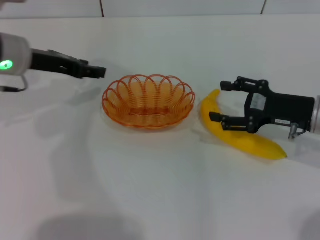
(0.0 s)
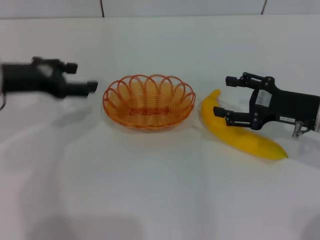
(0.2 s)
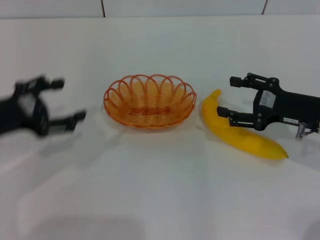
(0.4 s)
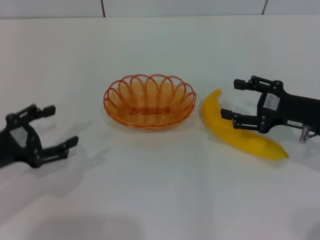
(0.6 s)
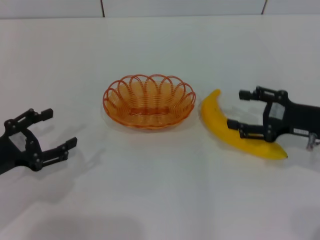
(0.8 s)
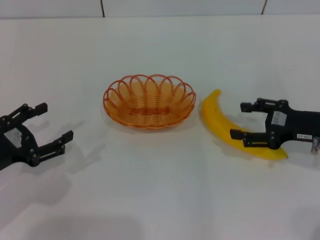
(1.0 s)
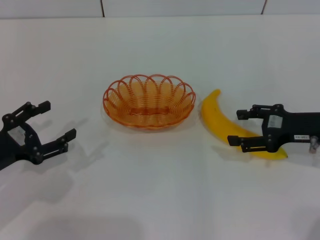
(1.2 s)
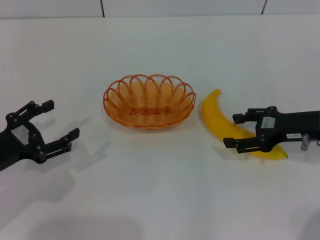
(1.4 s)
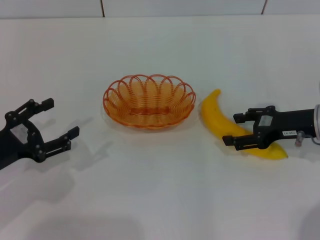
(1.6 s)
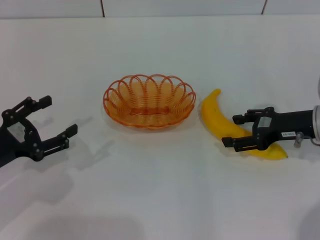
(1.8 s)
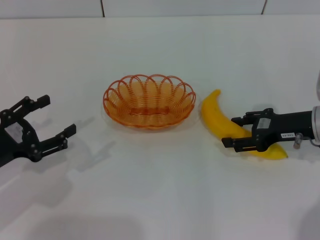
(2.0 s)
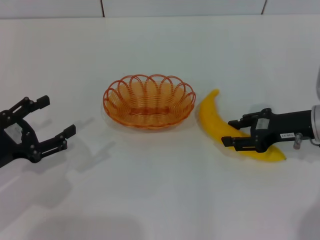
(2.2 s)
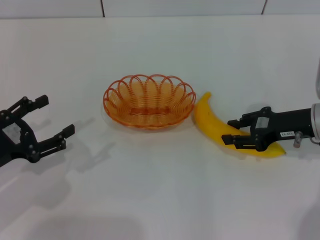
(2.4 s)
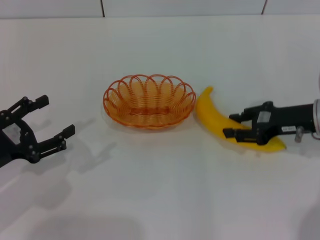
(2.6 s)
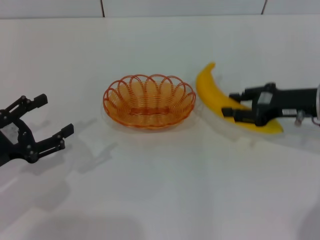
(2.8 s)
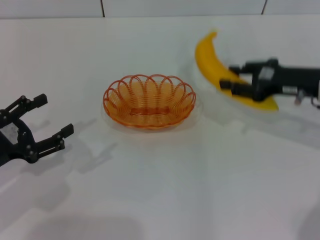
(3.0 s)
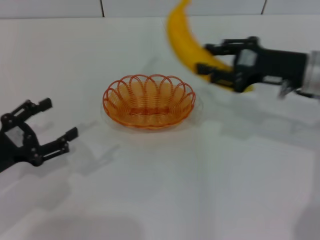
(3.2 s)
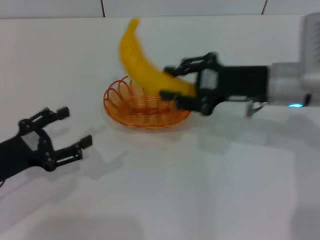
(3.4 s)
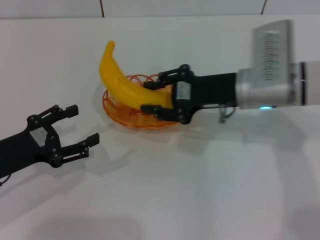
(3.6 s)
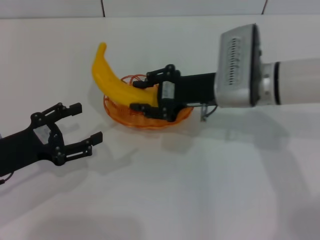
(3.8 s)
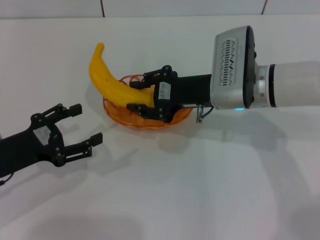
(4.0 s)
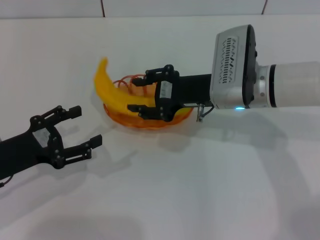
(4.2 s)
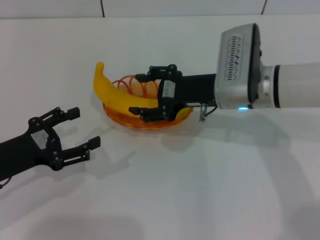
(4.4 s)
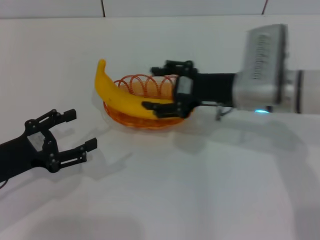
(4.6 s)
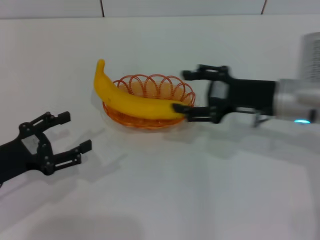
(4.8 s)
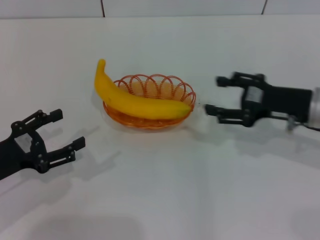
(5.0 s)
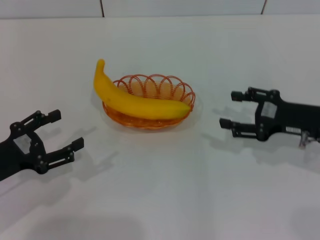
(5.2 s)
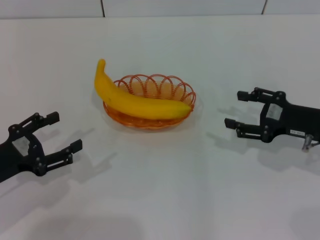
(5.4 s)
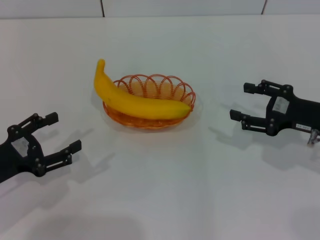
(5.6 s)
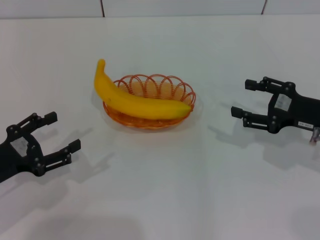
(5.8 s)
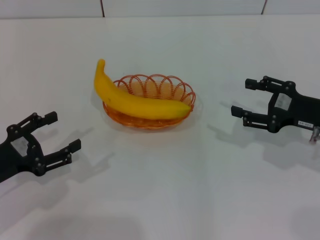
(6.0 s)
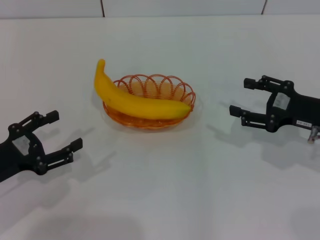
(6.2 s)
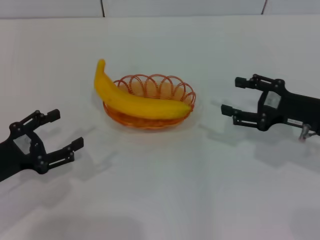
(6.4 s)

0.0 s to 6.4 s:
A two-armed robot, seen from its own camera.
Step, 0.2 to 2.8 s: Pick up the banana with the right gripper.
Step, 3.2 to 5.0 s: Place the banana into the basket with the right gripper.
0.0 to 1.6 s: The left gripper heads backward, downward and to the left, covering some 20 cm, and opens up.
1.6 to 3.2 s: The right gripper travels upward by some 5 cm, and closes up.
3.2 to 4.8 s: The right gripper travels to the left and back again, approximately 10 cm each way, and opens its fingers.
4.8 to 6.4 s: The right gripper travels to the right by some 5 cm.

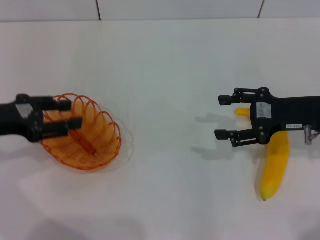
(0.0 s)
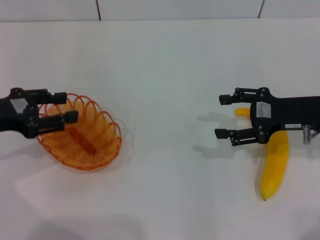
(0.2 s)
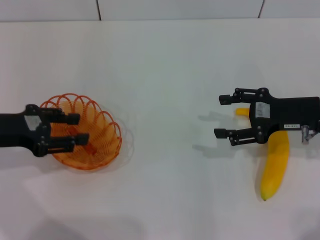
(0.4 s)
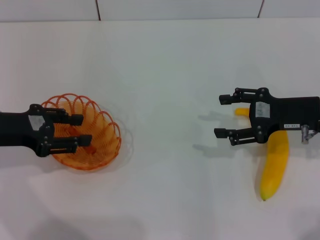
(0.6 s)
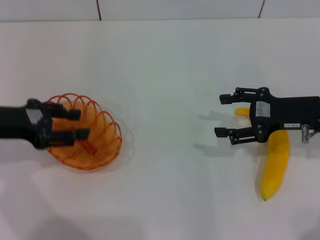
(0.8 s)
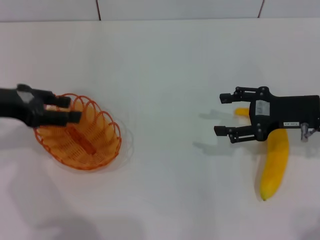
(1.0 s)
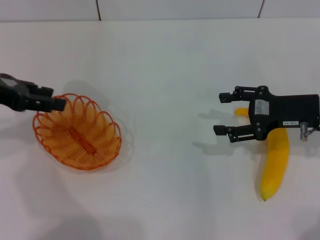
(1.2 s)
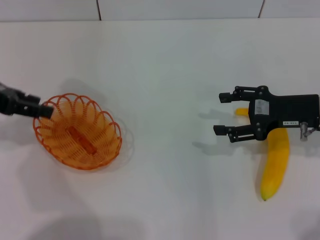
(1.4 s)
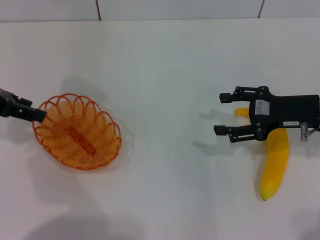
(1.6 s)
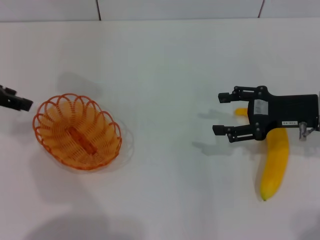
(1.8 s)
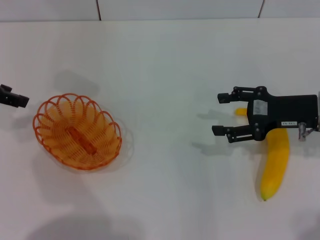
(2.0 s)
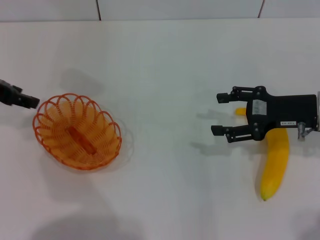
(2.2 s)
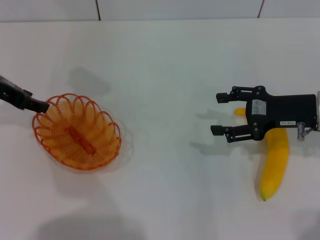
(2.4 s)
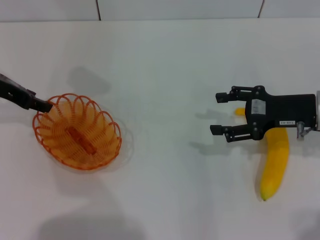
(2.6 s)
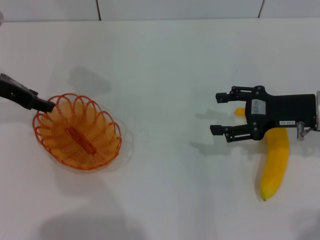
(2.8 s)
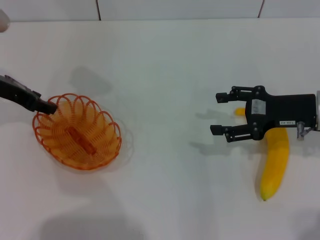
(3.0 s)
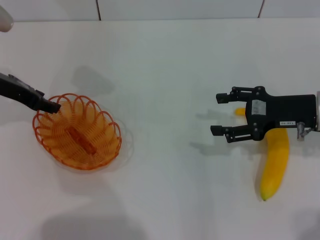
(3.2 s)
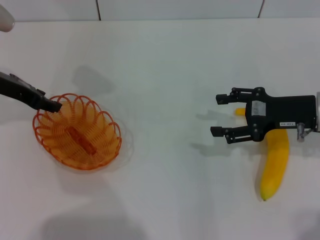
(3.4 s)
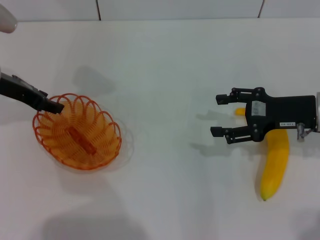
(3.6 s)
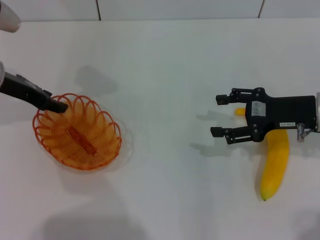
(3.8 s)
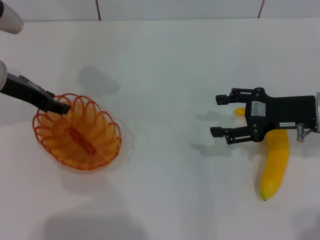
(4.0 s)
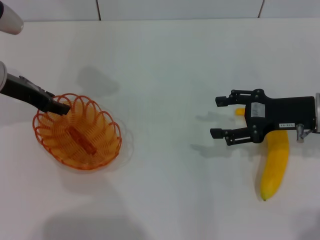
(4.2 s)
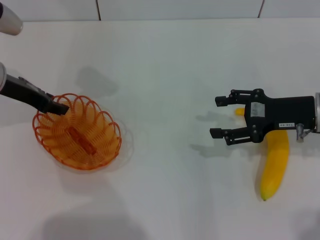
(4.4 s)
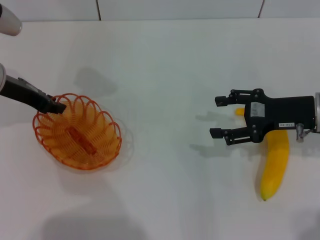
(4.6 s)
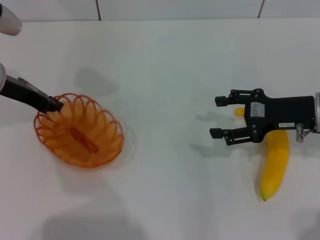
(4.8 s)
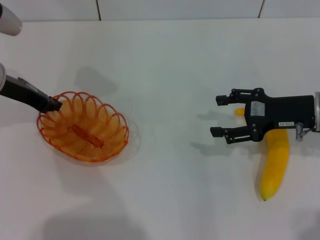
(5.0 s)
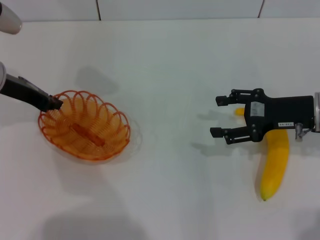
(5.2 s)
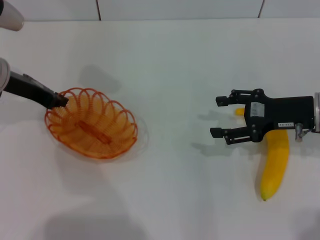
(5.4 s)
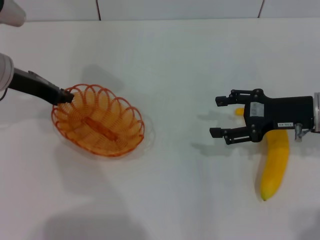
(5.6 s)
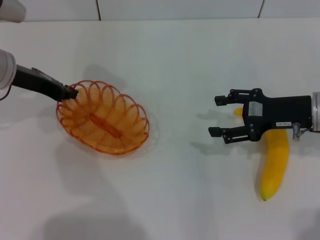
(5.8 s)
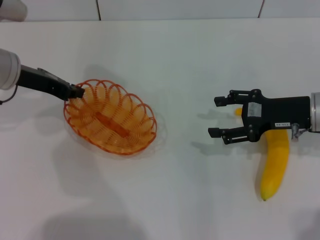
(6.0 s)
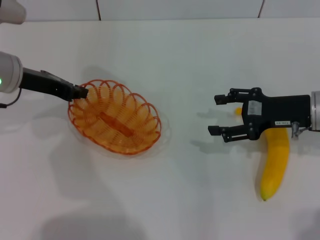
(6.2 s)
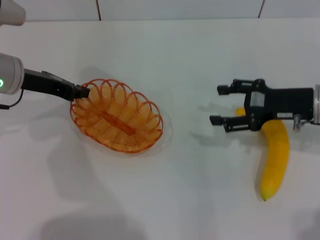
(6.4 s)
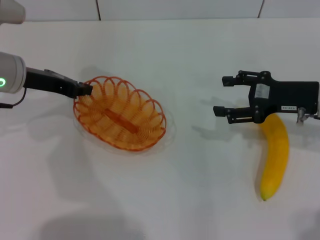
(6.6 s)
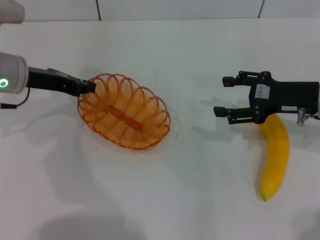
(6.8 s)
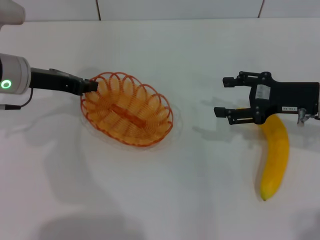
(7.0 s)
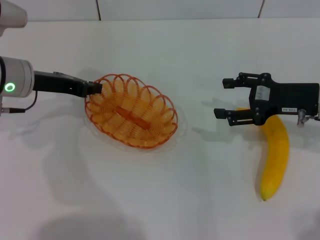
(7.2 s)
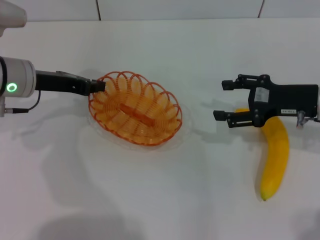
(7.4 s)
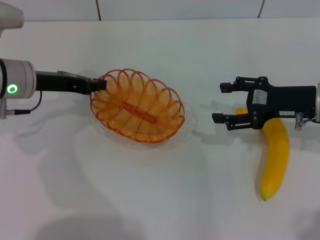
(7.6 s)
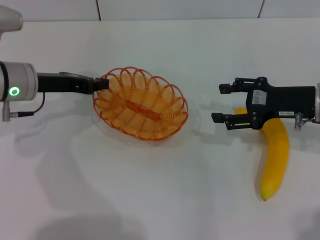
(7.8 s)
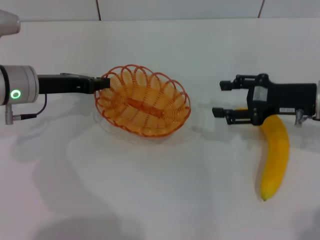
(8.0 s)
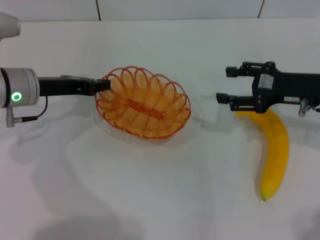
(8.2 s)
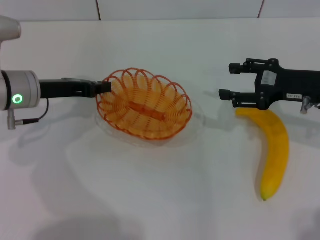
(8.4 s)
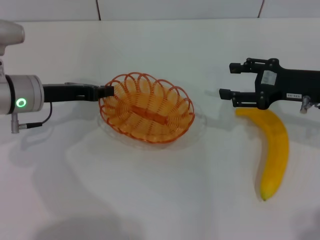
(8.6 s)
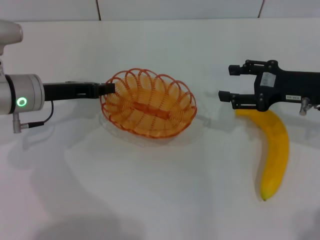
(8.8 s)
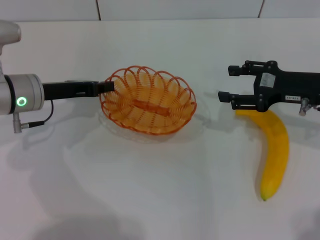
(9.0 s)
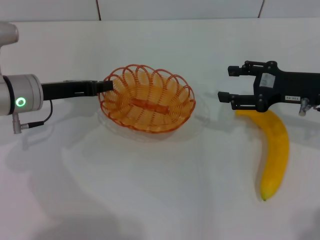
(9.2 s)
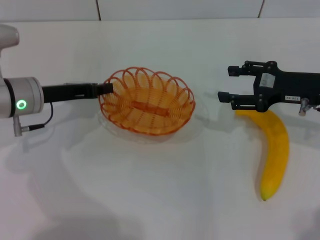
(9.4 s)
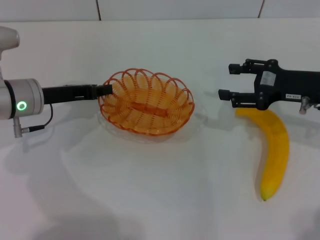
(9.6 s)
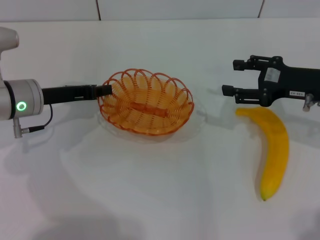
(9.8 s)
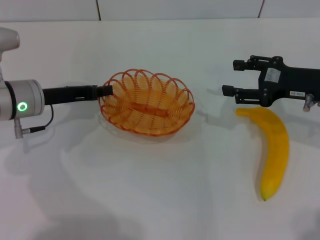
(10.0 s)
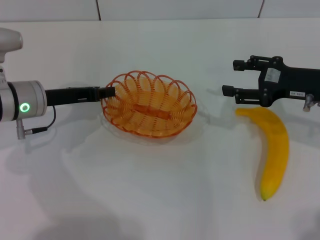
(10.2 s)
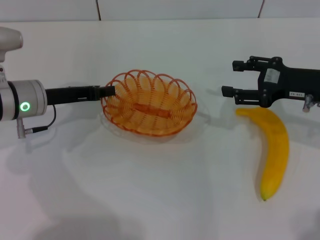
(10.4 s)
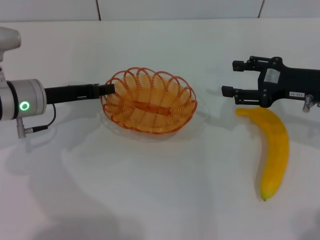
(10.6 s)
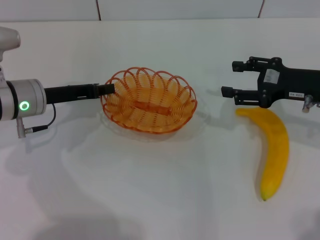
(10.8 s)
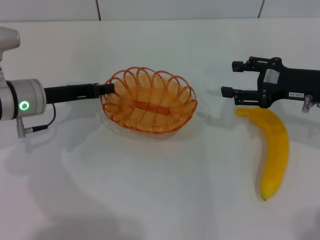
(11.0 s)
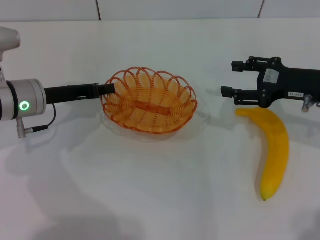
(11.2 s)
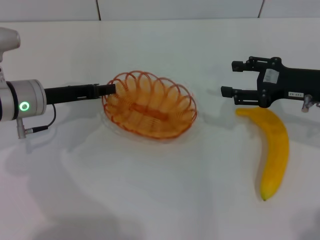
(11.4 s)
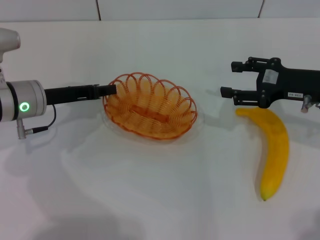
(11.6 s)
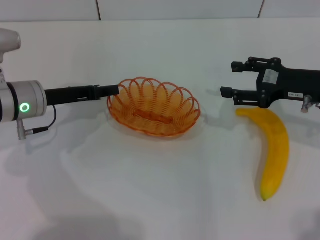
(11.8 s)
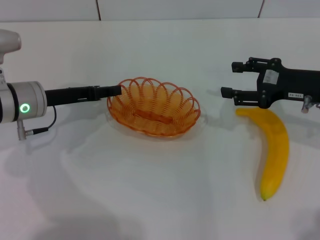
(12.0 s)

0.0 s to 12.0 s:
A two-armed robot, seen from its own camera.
Step, 0.0 to 5.8 s: Pick up the basket with the left gripper.
0.0 to 1.6 s: The left gripper travels upward by approximately 10 cm.
1.6 to 3.0 s: The left gripper goes some 5 cm downward.
3.0 to 4.4 s: The grippers make only small movements.
4.4 to 6.0 s: The left gripper closes up.
6.0 to 7.6 s: The grippers stay close to where they were, moving slightly.
7.6 to 9.0 s: The grippers move only a little.
9.0 to 12.0 s: Both grippers stay about where they are.

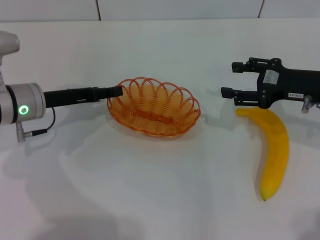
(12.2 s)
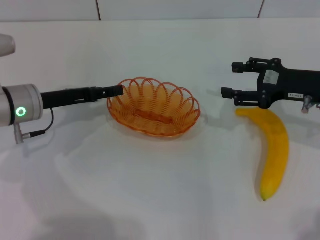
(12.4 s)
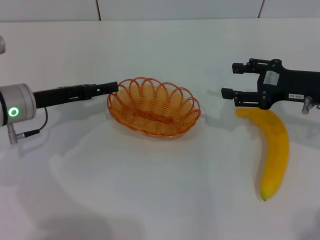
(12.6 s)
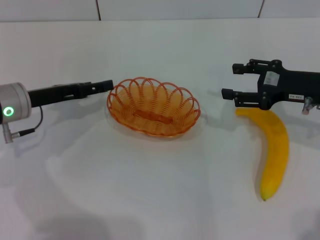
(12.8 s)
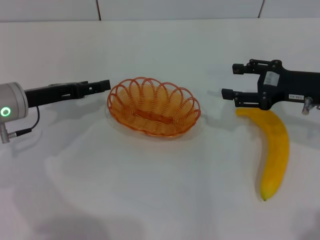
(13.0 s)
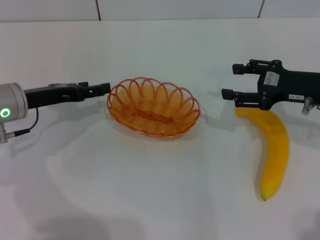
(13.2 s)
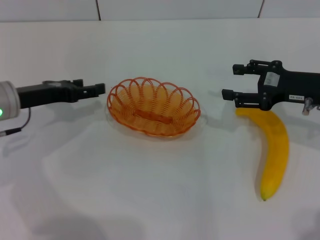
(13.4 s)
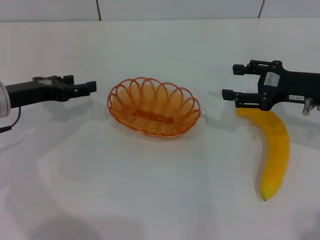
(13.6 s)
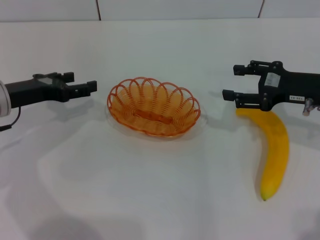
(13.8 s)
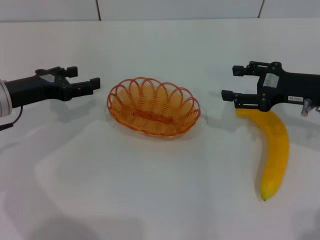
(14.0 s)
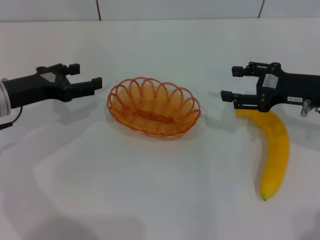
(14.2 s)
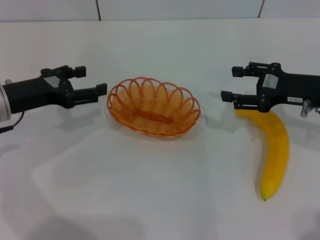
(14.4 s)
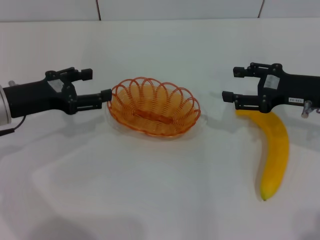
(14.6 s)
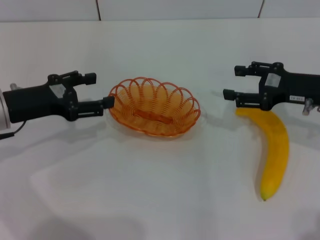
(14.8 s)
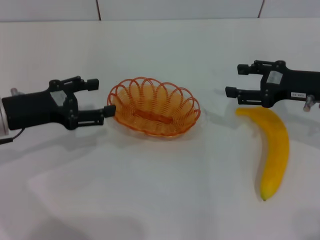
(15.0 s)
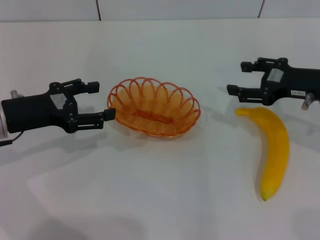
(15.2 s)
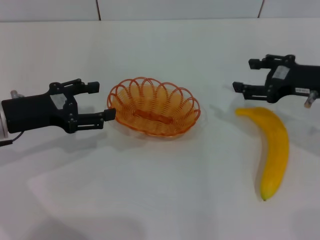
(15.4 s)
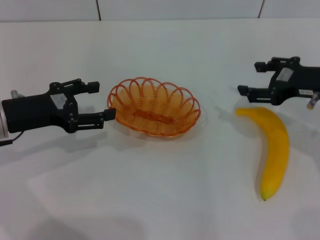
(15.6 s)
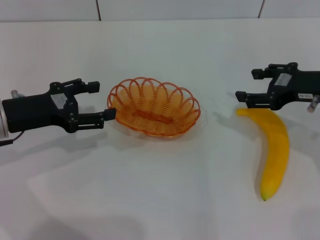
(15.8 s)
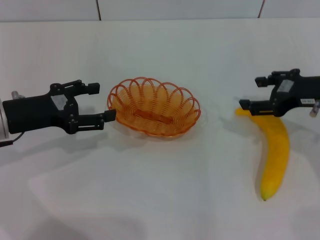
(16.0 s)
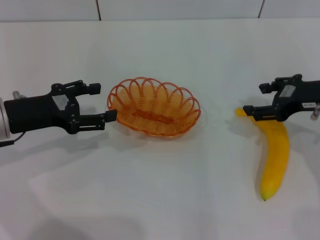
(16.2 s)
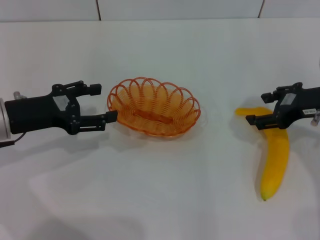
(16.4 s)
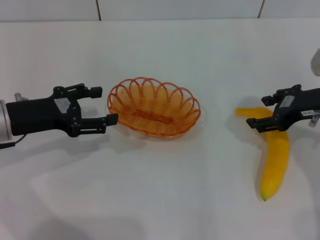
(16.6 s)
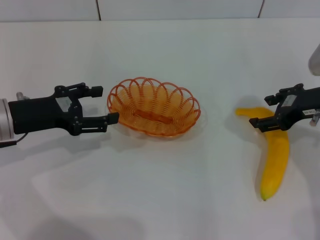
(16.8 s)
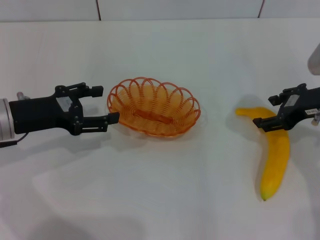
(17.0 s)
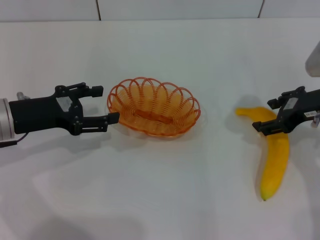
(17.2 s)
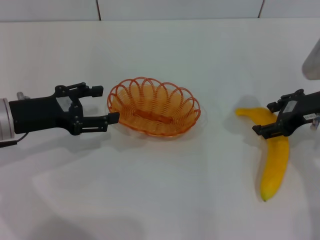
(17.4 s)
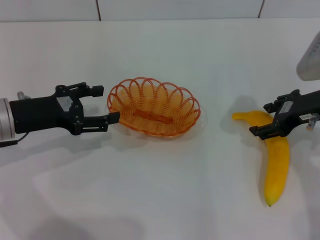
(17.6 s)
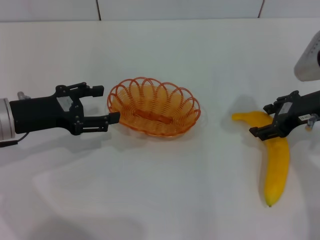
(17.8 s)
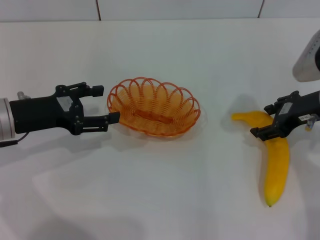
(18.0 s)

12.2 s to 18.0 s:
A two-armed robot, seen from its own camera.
12.2 to 13.6 s: The left gripper opens up.
16.6 to 18.0 s: The grippers move only a little.
